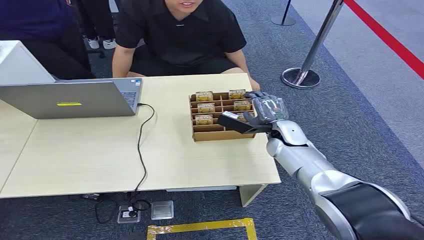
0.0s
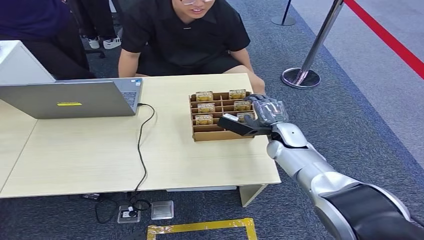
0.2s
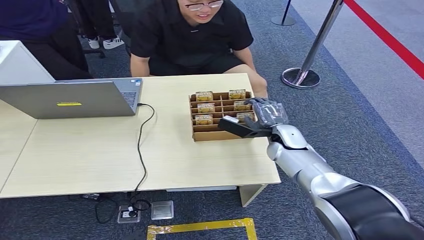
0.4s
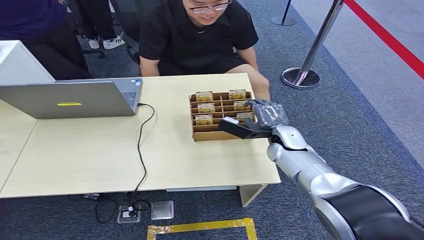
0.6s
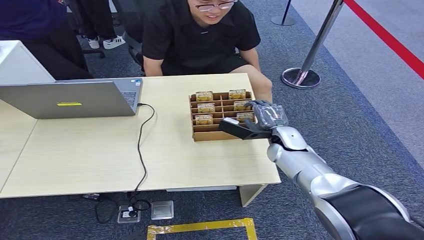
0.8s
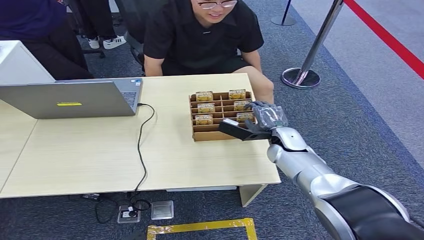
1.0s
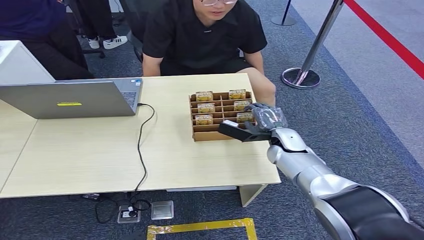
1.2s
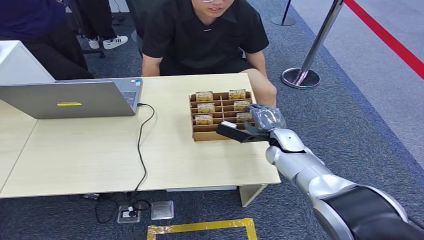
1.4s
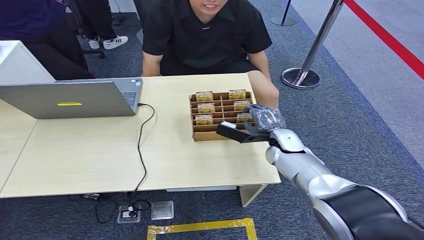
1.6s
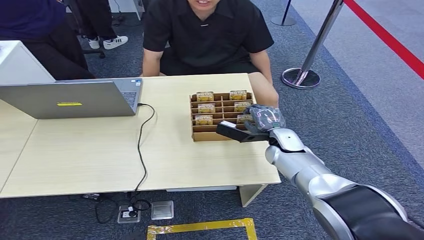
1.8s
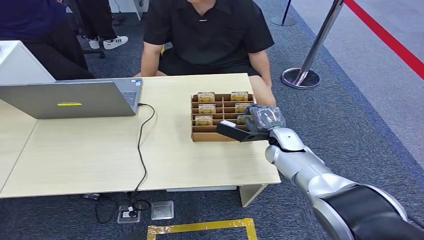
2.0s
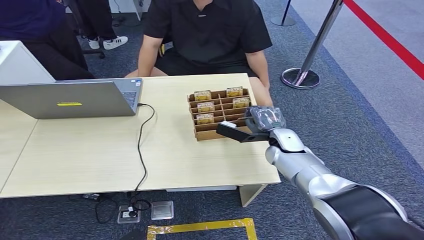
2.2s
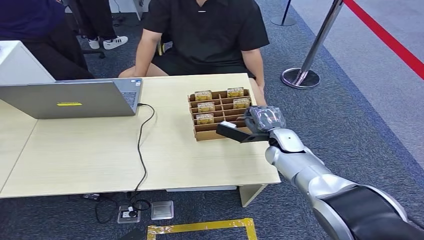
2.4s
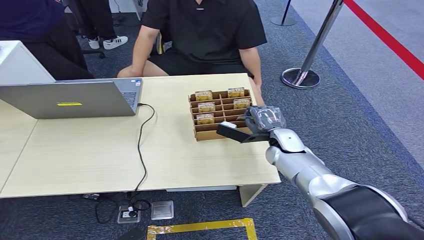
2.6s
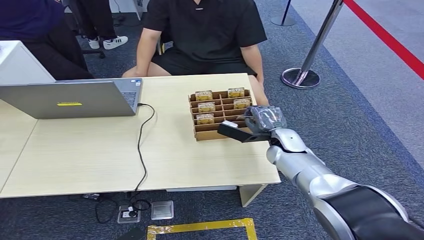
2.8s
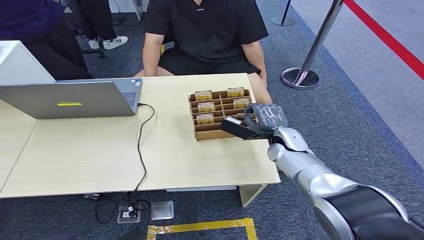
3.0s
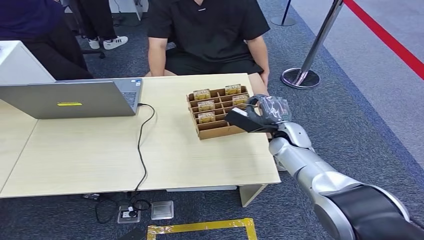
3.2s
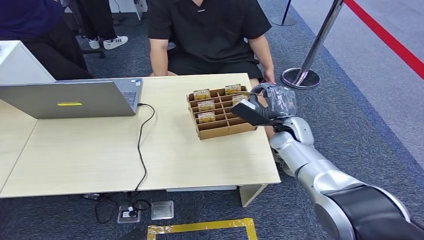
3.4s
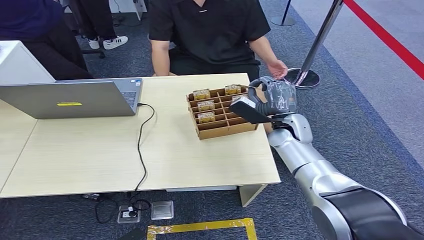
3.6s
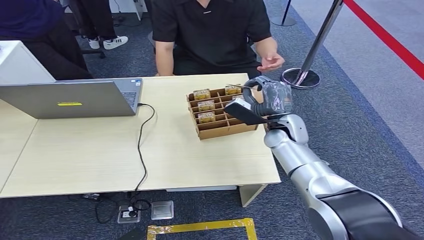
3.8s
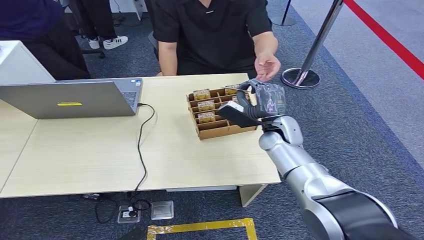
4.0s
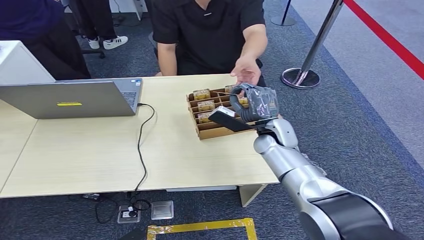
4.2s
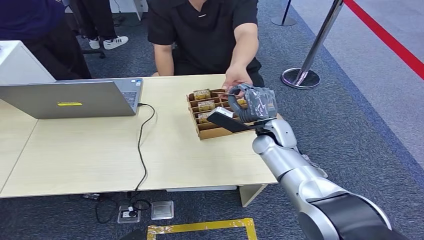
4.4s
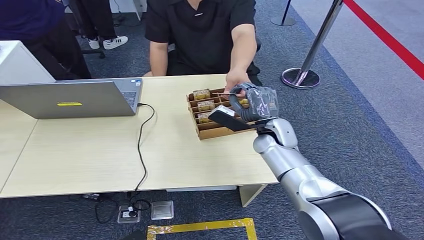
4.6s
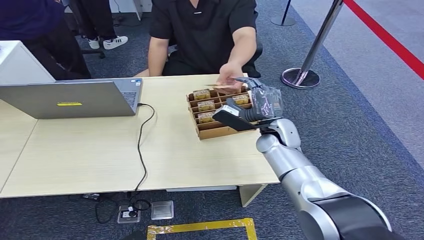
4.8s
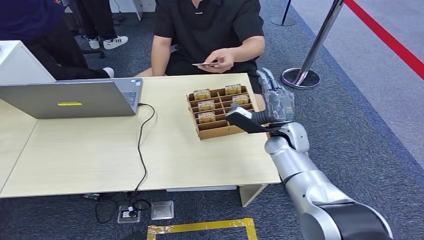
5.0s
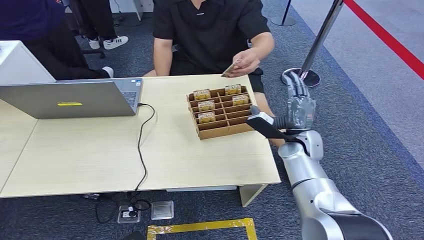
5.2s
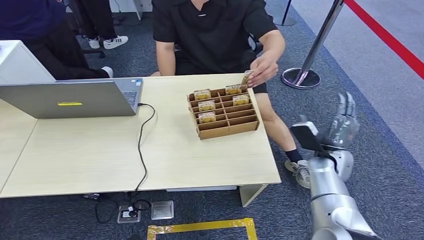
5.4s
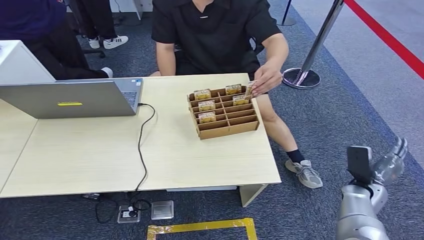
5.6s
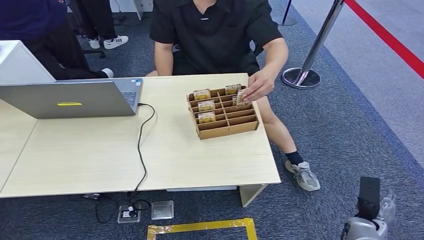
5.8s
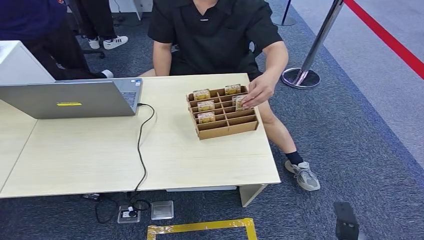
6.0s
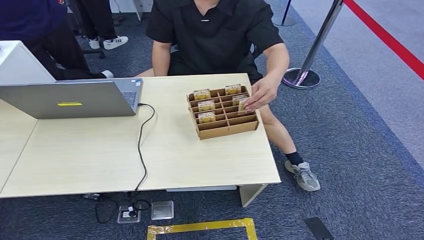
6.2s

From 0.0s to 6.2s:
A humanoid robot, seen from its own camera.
Step, from 0.0s to 3.4s: Pick up the key card from the card box.
Step, from 3.6s to 6.2s: Hand the key card to the target.
From 1.6s to 3.2s: There are only small adjustments of the hands.
From 3.2s to 4.6s: The right hand moves roughly 5 cm.
From 4.6s to 6.2s: The right hand shifts about 50 cm backward, downward and to the right.
